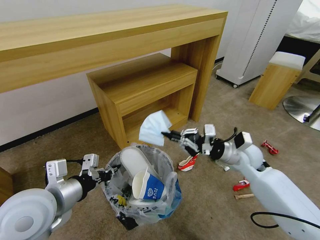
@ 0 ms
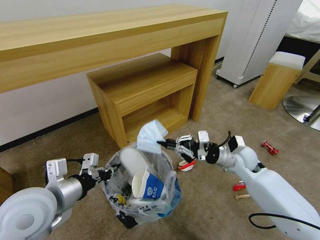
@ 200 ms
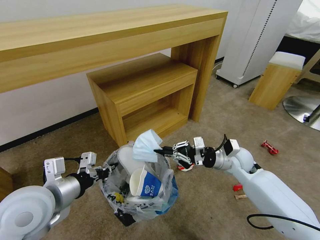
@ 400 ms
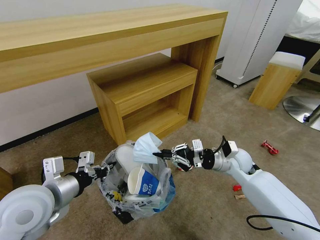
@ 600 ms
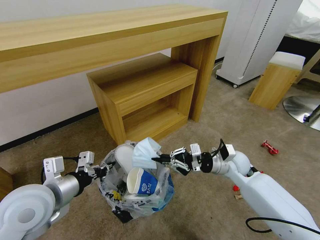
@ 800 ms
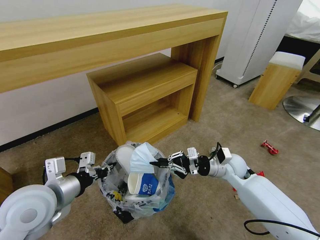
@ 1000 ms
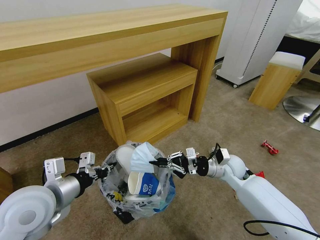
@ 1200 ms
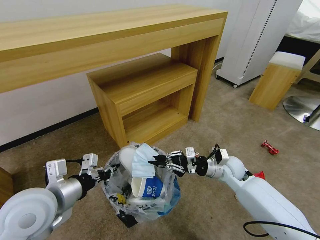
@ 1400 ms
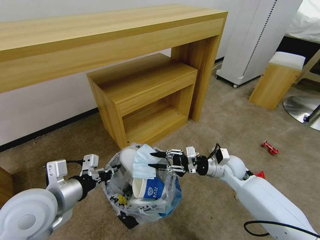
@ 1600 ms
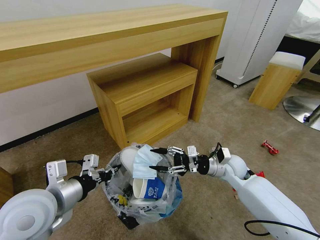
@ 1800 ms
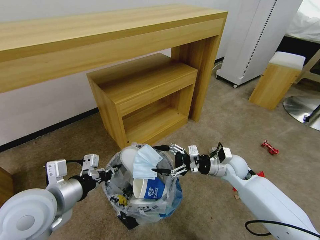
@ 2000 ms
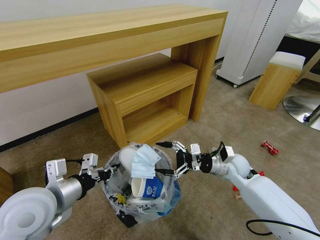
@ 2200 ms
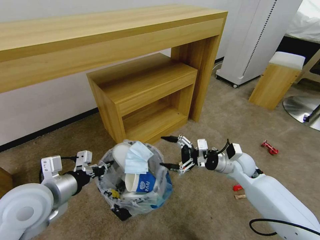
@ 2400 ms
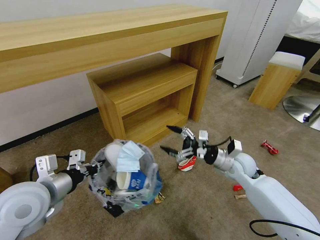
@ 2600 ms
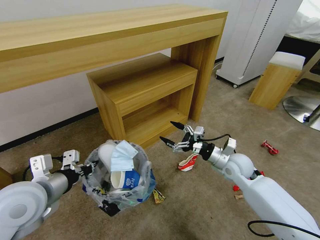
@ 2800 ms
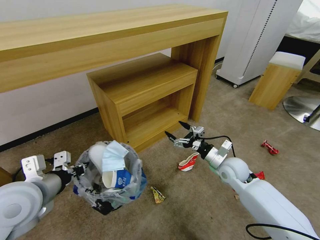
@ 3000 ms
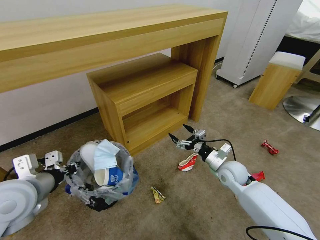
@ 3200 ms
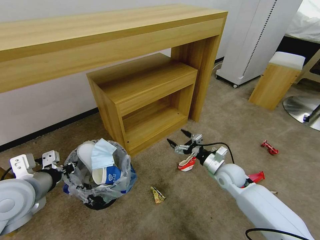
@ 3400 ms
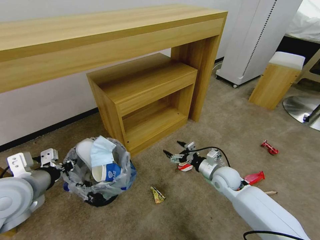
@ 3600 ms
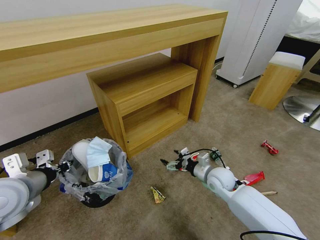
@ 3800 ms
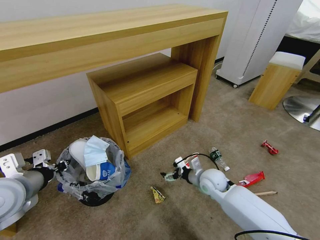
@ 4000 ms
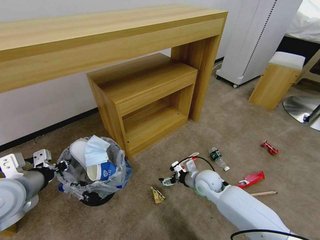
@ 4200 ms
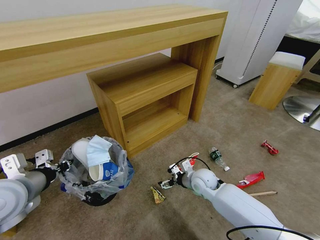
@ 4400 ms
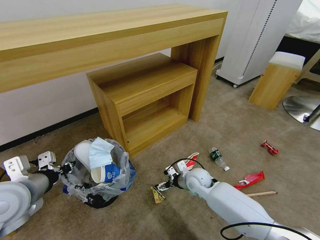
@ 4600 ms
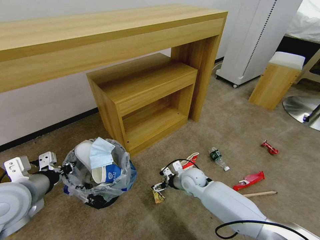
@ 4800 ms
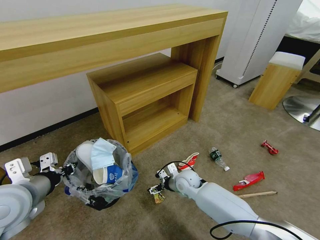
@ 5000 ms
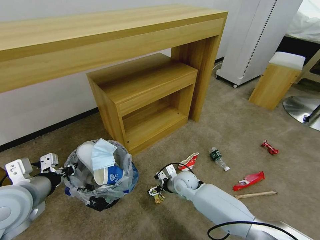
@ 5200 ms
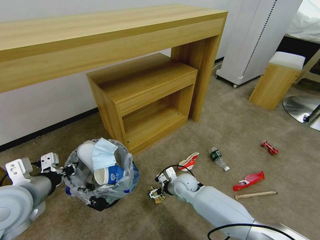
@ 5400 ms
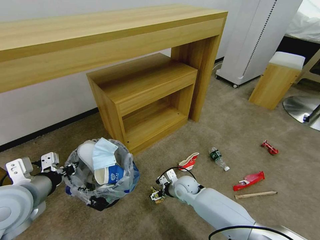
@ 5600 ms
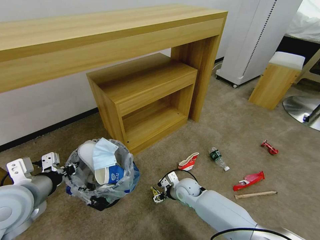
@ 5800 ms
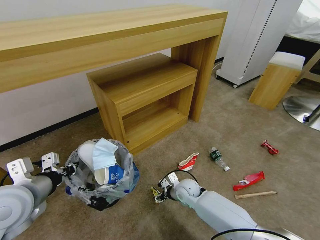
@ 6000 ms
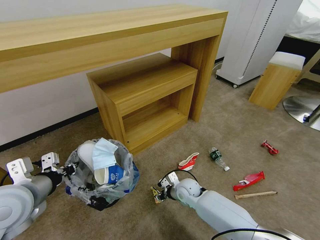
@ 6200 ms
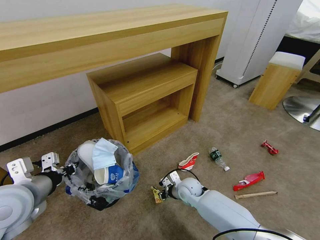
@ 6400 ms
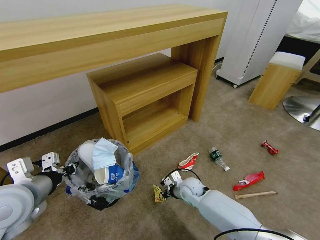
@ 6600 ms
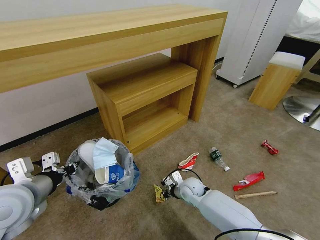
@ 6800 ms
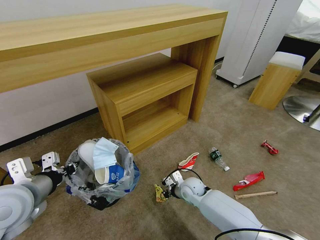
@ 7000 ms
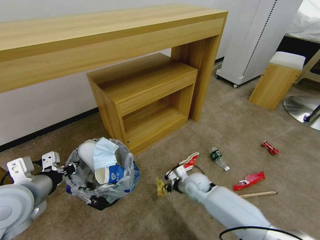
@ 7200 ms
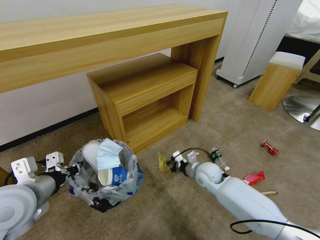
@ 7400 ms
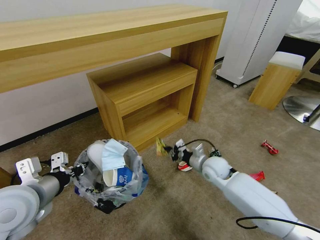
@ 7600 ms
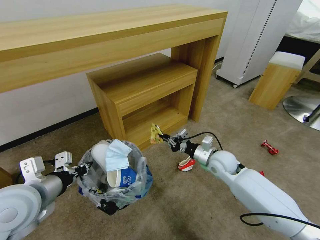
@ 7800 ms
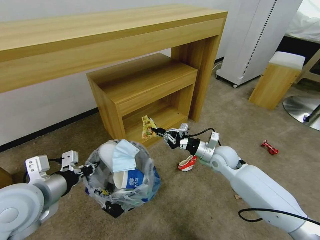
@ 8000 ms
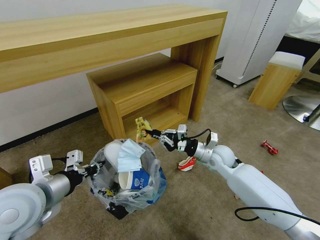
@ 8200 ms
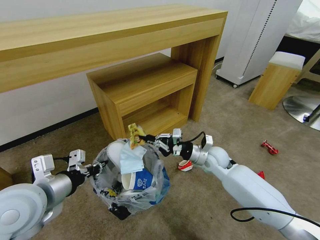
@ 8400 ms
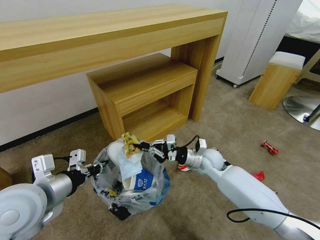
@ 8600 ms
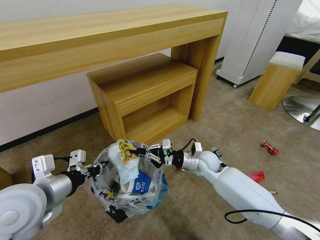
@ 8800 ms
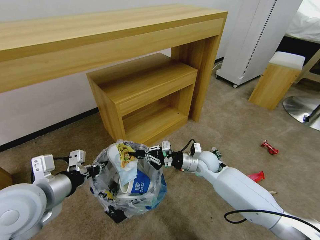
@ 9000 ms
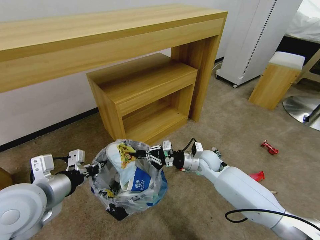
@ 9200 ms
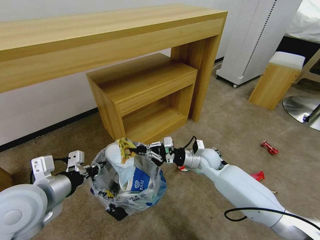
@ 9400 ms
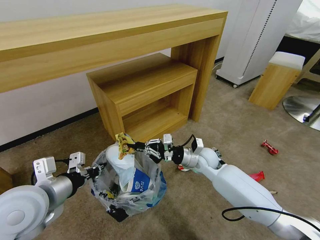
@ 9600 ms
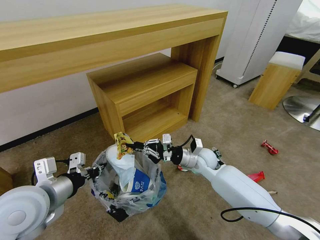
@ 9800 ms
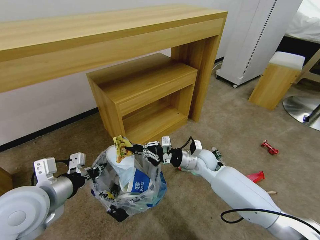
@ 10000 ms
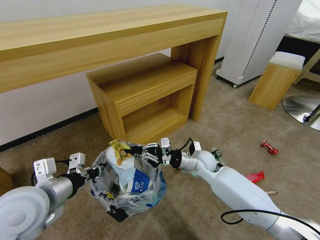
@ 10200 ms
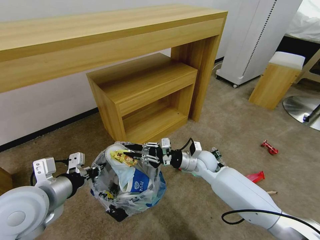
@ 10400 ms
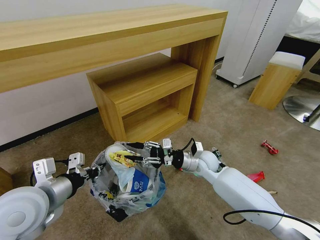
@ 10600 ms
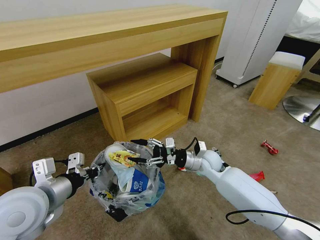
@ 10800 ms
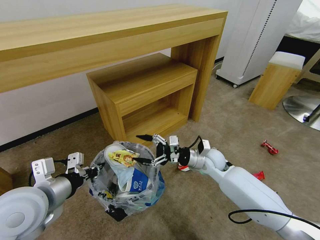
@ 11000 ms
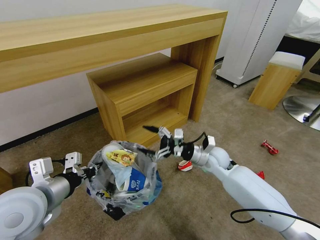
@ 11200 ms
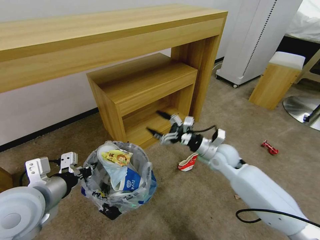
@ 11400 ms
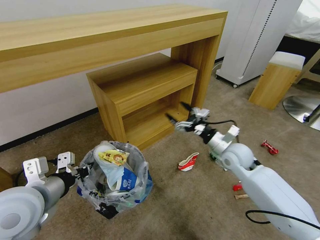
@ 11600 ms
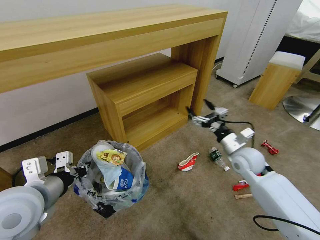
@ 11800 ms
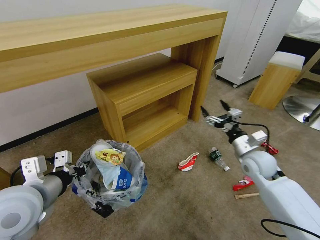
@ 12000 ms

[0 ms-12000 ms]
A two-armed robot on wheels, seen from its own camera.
Task of the whole recording: Pick up the trash bin and place the garbage on the floor into it.
0 ms to 1600 ms: The right gripper moves downward, approximately 5 cm, and opens.
1600 ms to 3000 ms: The right gripper opens.
3000 ms to 4400 ms: The right gripper moves to the left and downward, some 10 cm.
4400 ms to 6000 ms: The right gripper is displaced downward and to the left by roughly 10 cm, and closes.
6000 ms to 7600 ms: The right gripper moves upward and to the right, about 15 cm, and closes up.
9000 ms to 10400 ms: There are only small adjustments of the grippers.
10400 ms to 12000 ms: The right gripper shifts some 15 cm to the right, and opens its fingers.

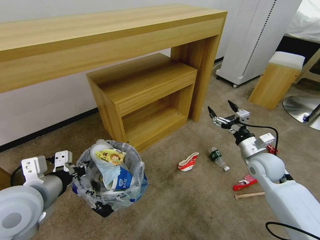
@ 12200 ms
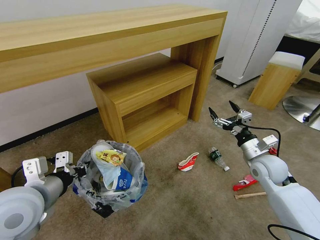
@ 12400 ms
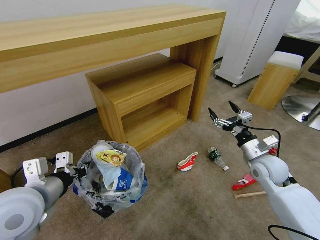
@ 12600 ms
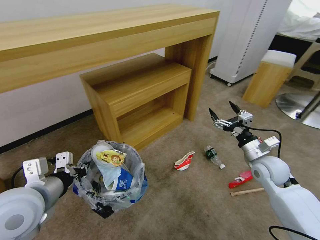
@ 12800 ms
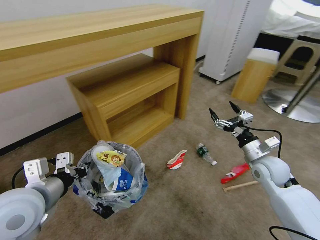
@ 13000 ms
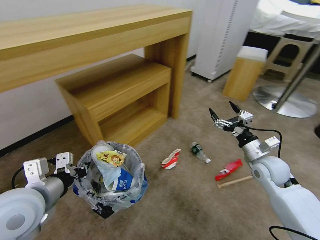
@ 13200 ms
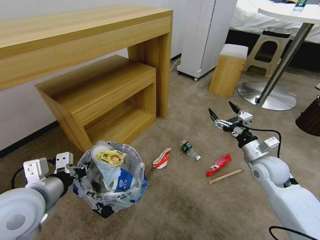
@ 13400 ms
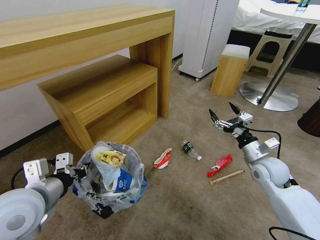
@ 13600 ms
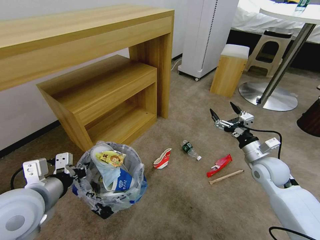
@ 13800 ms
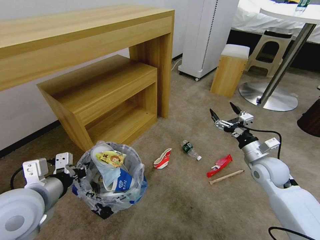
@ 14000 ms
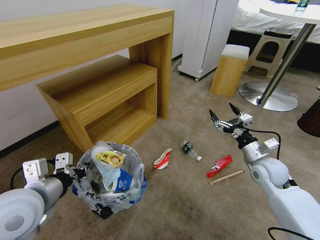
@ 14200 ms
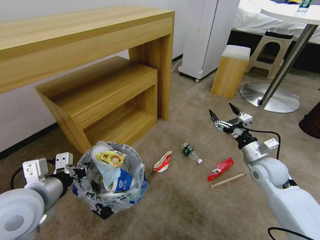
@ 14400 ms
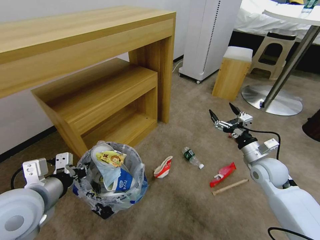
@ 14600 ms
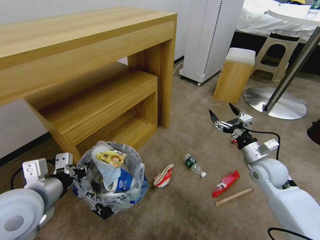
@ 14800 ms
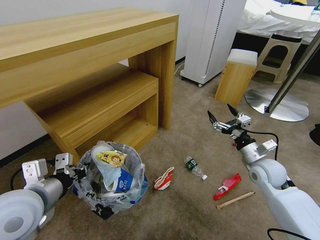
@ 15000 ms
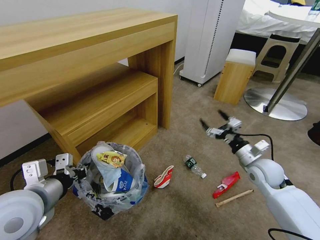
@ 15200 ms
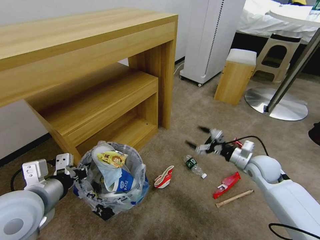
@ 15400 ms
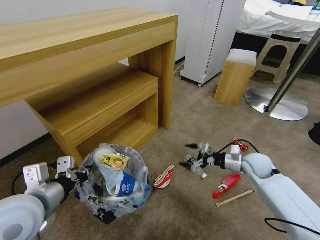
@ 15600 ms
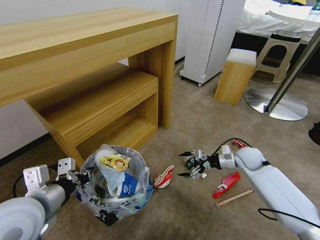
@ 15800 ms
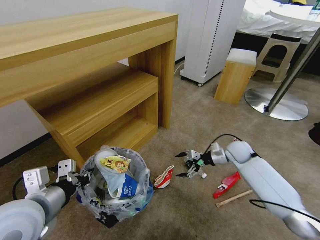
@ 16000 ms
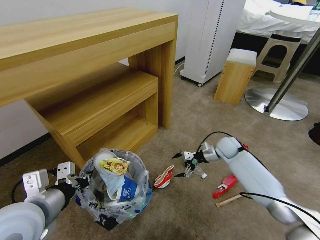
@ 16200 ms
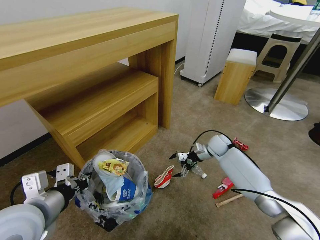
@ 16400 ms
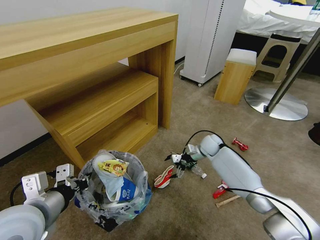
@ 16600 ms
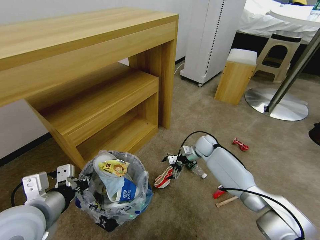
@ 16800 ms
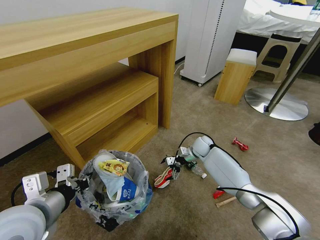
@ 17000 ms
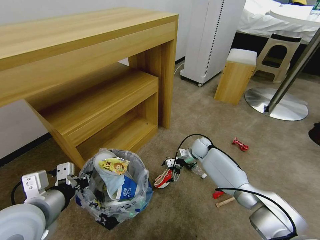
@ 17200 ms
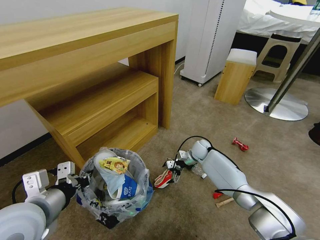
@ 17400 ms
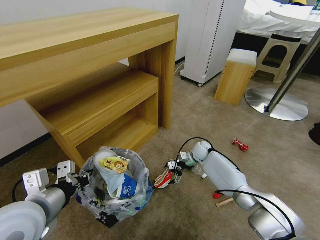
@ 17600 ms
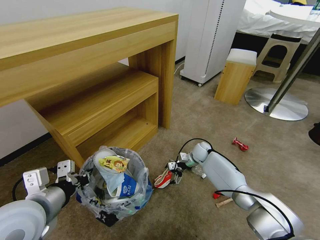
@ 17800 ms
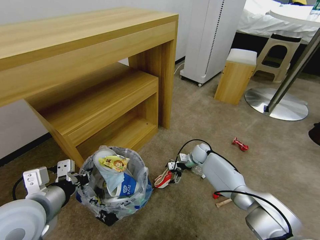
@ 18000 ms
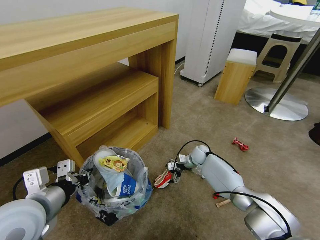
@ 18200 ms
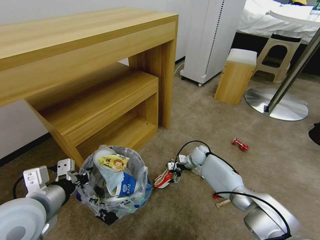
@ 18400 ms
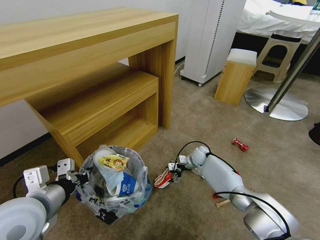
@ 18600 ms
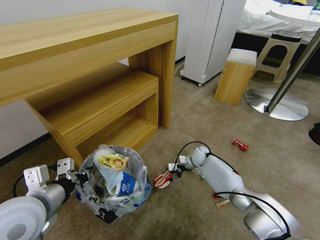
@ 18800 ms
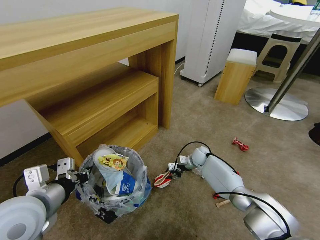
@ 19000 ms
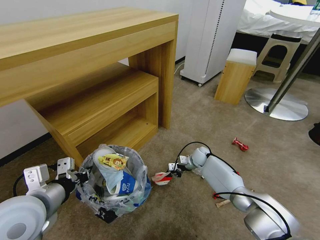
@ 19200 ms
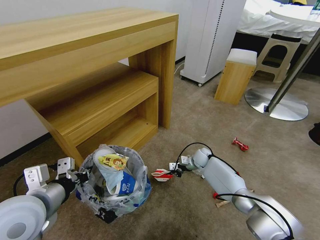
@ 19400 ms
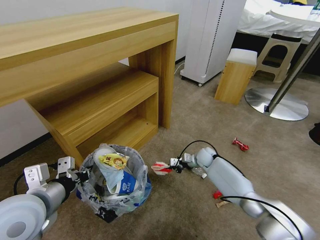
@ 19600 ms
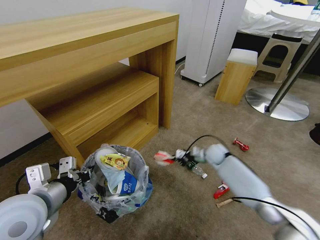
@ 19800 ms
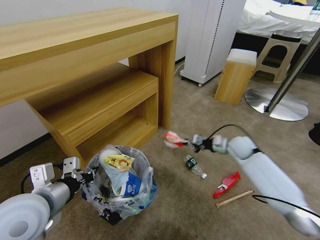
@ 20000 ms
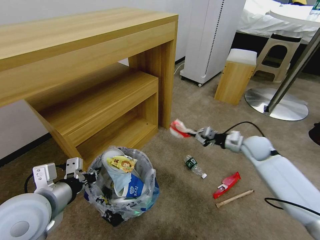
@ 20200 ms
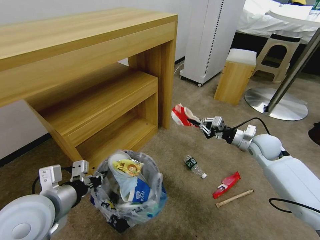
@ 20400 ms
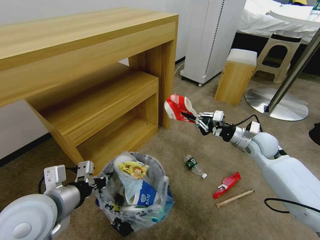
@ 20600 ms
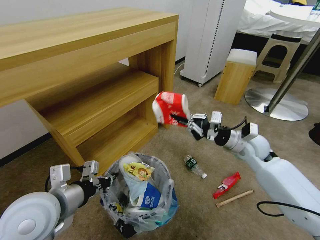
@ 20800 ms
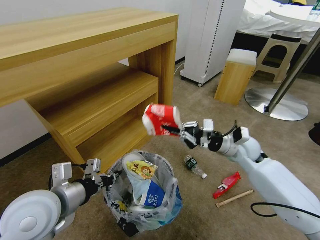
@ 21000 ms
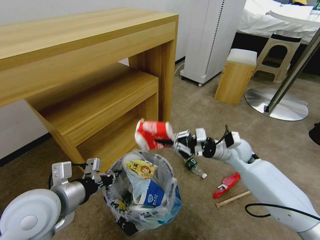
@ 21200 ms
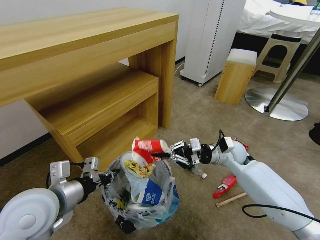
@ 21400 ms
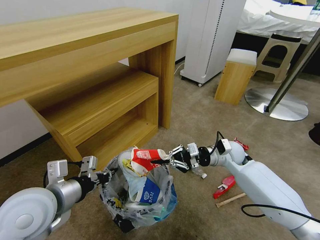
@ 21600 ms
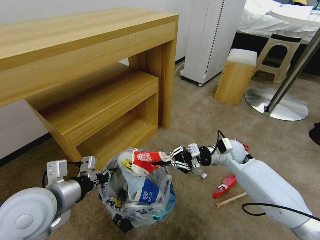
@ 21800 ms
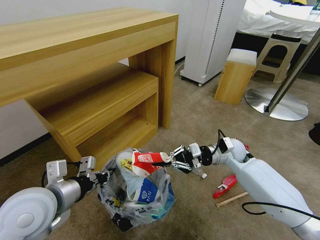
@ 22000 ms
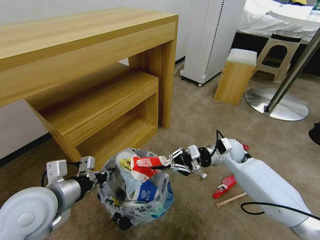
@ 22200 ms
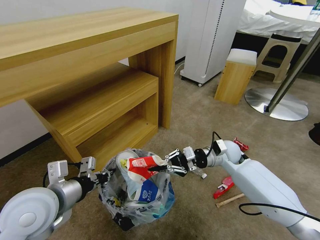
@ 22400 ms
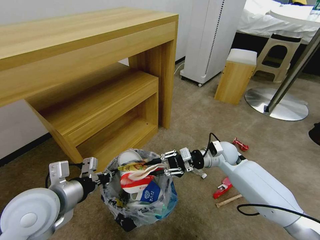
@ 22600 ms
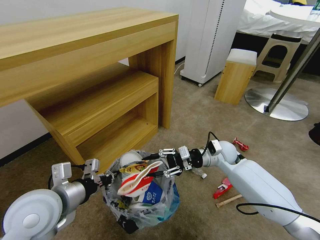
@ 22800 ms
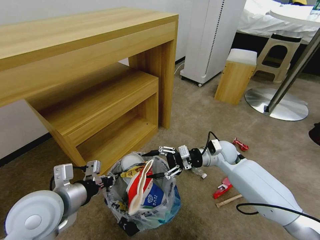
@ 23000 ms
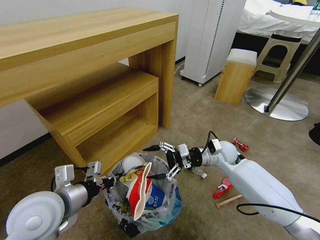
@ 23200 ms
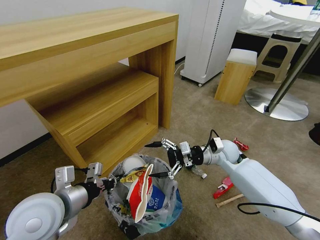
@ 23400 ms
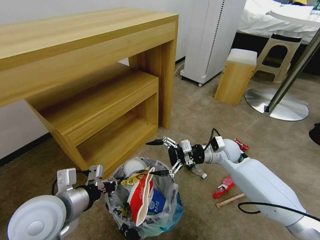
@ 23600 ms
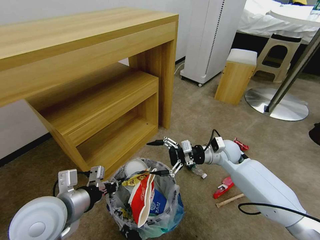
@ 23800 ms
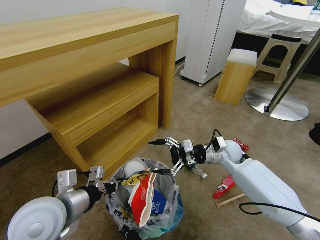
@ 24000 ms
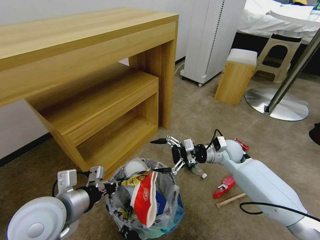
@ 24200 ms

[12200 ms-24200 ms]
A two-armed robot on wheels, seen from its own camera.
Task of the whole recording: Pick up the trash bin and place the garbage on the floor into it.
15200 ms to 16600 ms: The right gripper is displaced forward and to the left by roughly 20 cm.
16600 ms to 18200 ms: The right gripper heads downward, covering roughly 10 cm.
18200 ms to 19800 ms: The right gripper shifts some 10 cm to the right and upward, and closes up.
19800 ms to 21200 ms: The right gripper shifts some 15 cm upward and backward.
21200 ms to 22600 ms: There are only small adjustments of the grippers.
22600 ms to 24200 ms: The right gripper opens.
